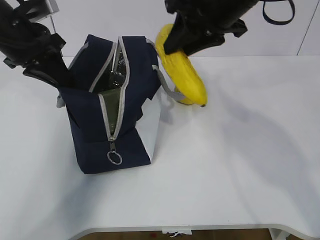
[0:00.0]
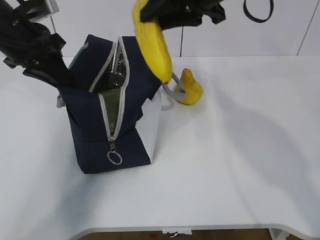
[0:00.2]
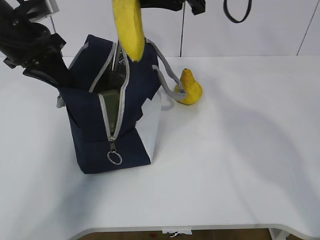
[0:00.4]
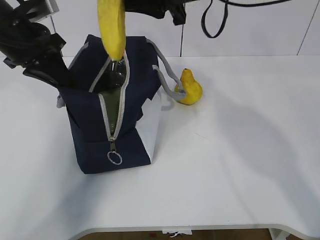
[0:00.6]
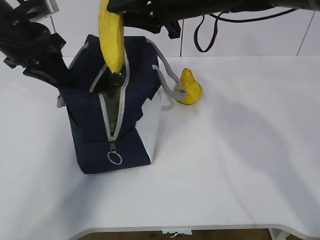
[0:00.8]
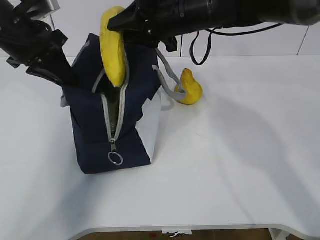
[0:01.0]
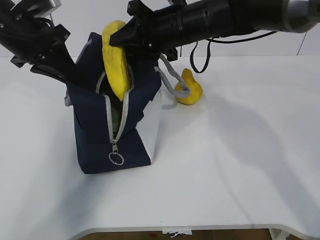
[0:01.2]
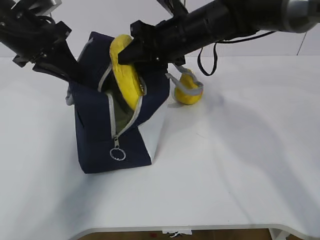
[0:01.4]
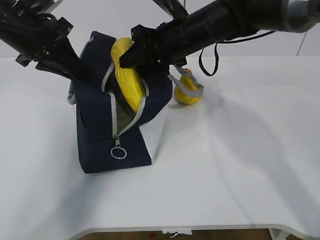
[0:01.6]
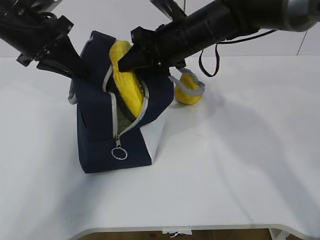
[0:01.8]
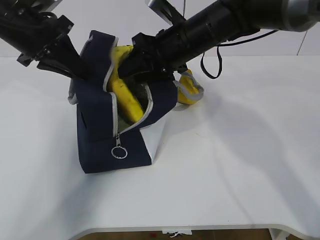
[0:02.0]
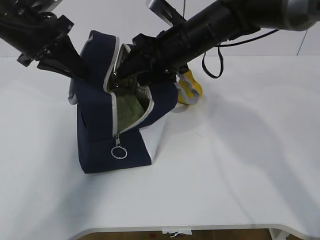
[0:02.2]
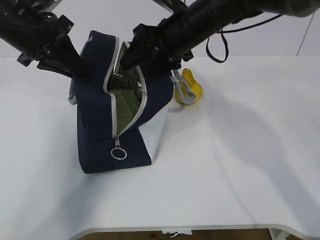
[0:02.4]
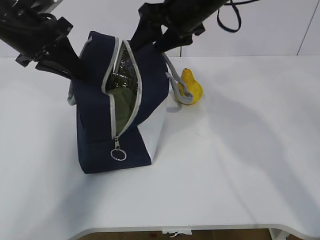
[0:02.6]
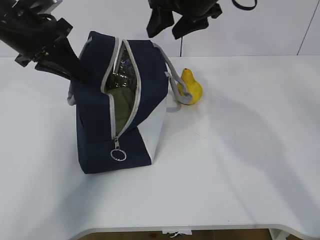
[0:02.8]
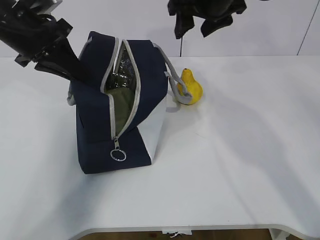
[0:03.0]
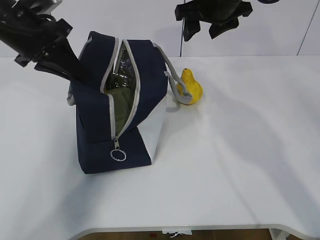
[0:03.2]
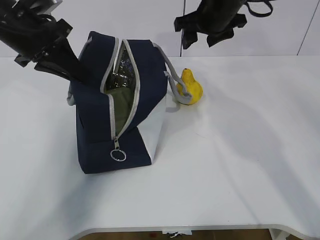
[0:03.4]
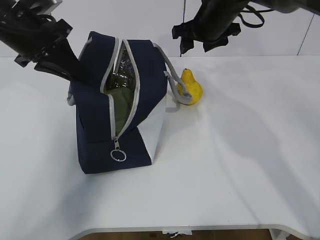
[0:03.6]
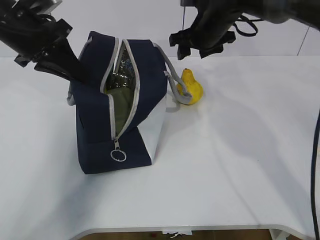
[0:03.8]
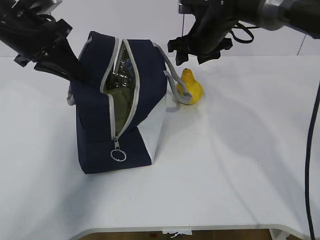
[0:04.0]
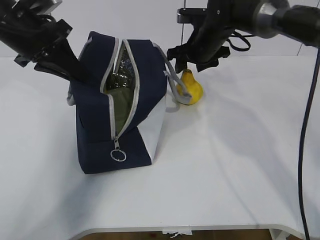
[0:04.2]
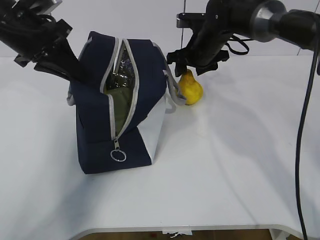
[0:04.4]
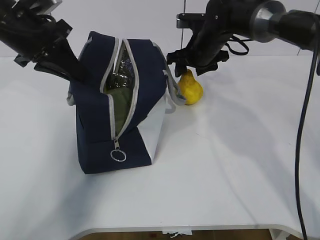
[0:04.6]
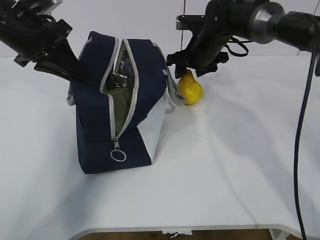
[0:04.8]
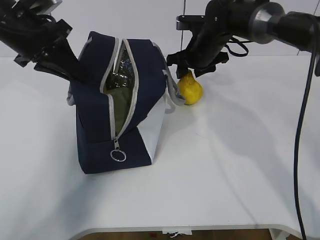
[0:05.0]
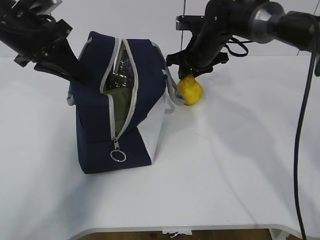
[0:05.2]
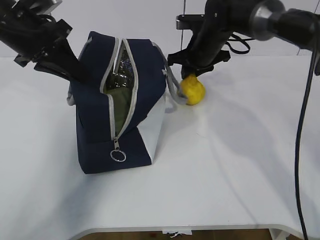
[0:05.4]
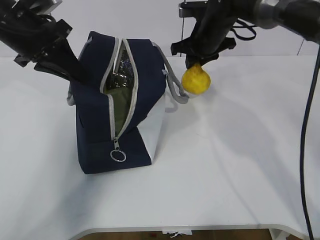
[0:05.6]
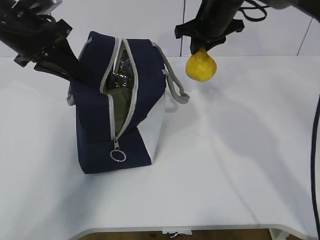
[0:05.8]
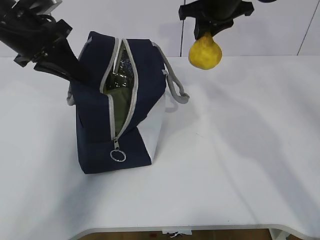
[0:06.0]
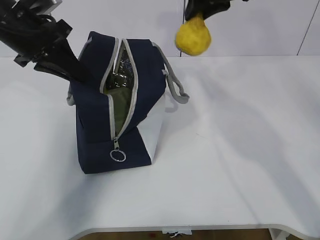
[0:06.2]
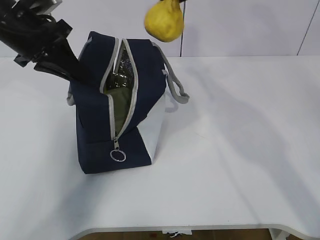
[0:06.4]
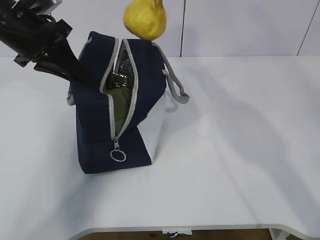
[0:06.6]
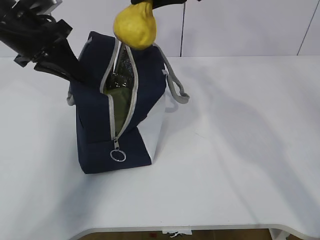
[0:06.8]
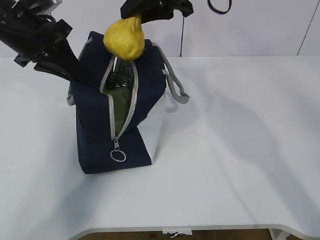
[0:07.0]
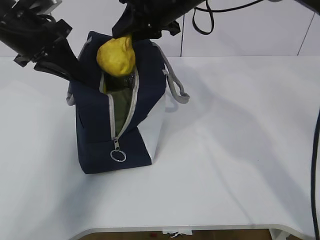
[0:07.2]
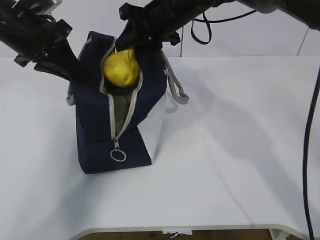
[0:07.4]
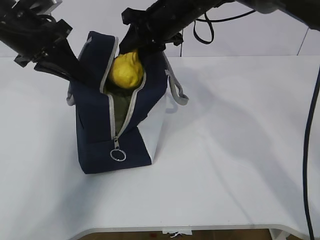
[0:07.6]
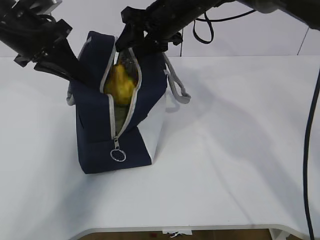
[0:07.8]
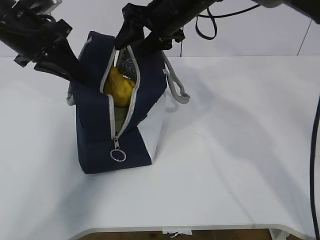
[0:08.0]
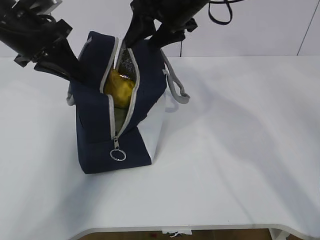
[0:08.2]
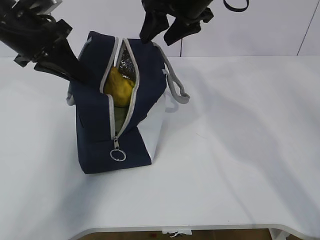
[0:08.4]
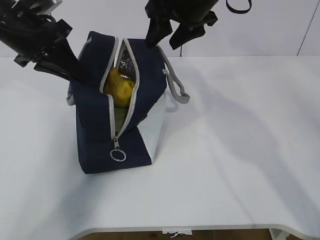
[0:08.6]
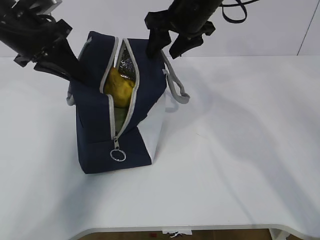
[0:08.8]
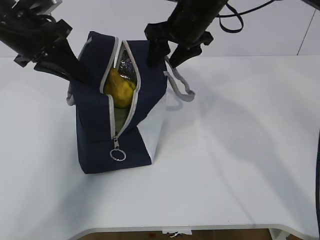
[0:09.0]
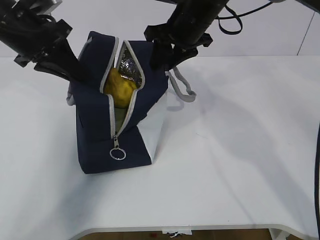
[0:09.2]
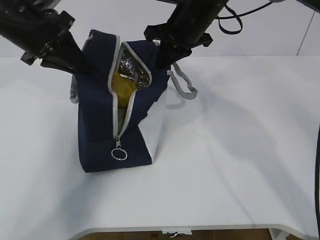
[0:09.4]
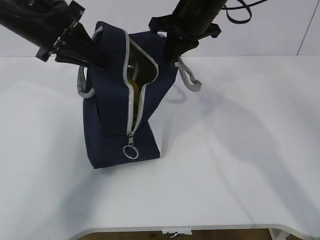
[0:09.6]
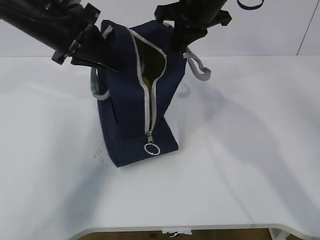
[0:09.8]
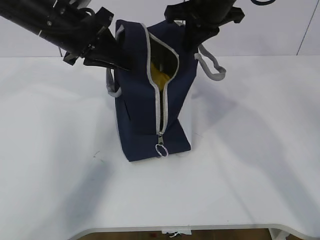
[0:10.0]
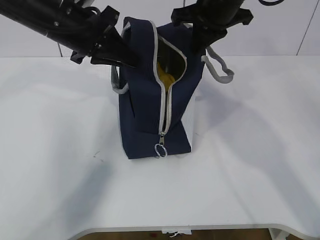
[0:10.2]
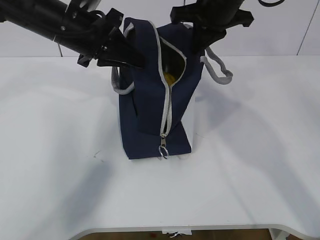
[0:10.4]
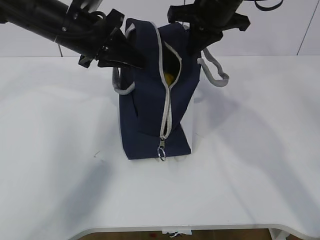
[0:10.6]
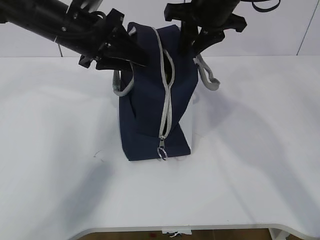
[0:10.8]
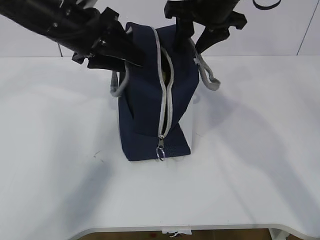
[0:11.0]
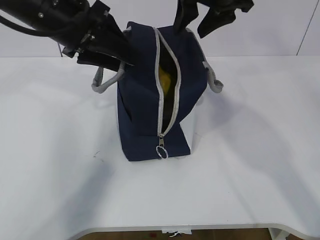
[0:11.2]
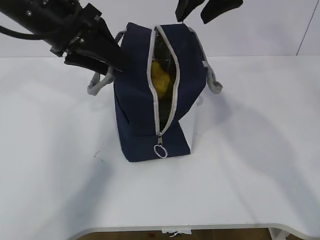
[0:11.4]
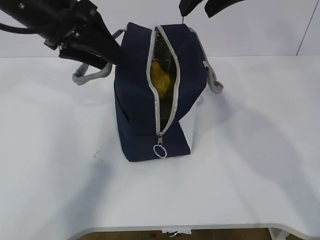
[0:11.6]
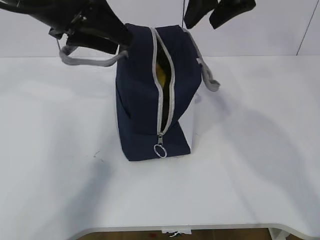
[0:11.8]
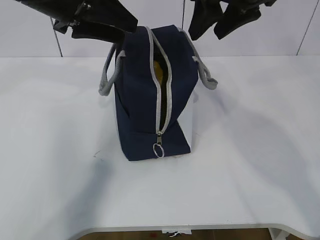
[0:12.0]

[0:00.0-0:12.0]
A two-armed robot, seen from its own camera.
Step, 3.4 to 3.6 s: Grab the lunch bag with your right hand.
Step, 3.8 to 6.0 s: Move the lunch bag to the right.
0.0 to 1.6 s: The right gripper moves downward and forward, some 10 cm.
1.6 to 3.0 s: The right gripper goes about 10 cm upward and to the right, and opens.
3.0 to 4.4 s: The right gripper travels downward and forward by approximately 15 cm.
4.4 to 6.0 s: The right gripper is displaced upward by some 10 cm, and closes.
6.0 to 7.6 s: The right gripper goes approximately 10 cm to the left, and moves some 5 cm upward and comes back.
7.6 to 9.0 s: The right gripper opens its fingers.
9.0 to 10.4 s: The right gripper moves about 5 cm, and closes its fingers, while the left gripper shifts approximately 5 cm to the right.
10.4 to 12.0 s: The left gripper moves upward, roughly 5 cm, and opens, while the right gripper moves backward and upward, roughly 10 cm, and opens its fingers.

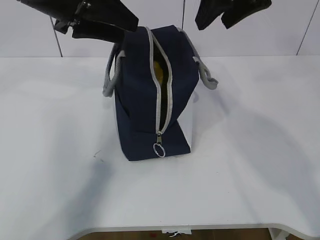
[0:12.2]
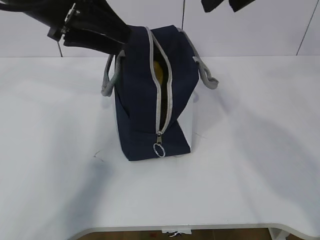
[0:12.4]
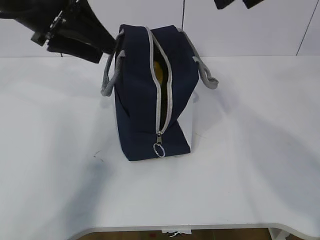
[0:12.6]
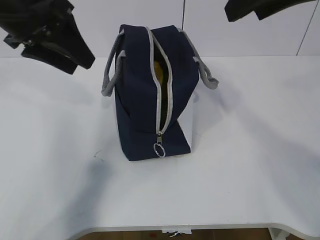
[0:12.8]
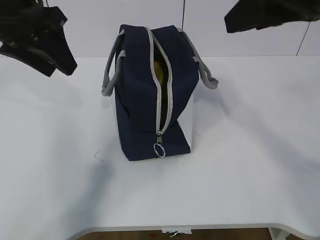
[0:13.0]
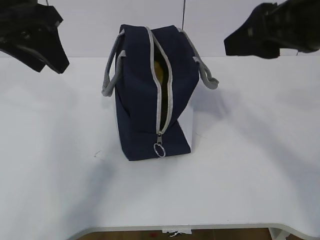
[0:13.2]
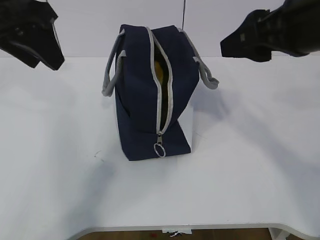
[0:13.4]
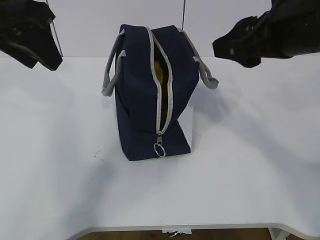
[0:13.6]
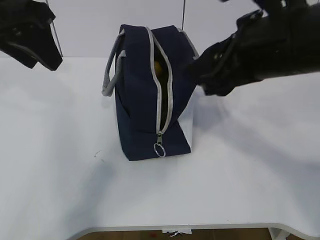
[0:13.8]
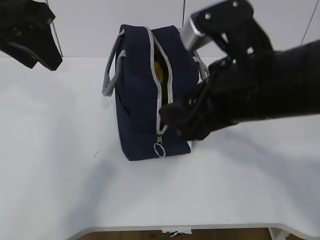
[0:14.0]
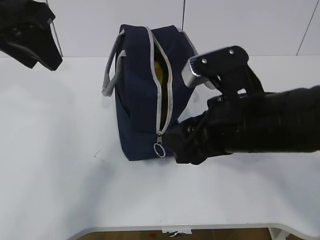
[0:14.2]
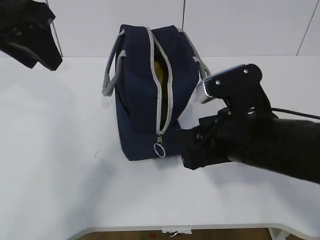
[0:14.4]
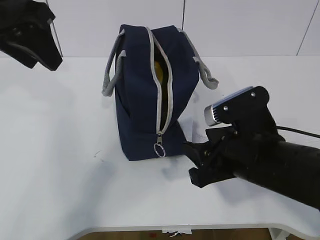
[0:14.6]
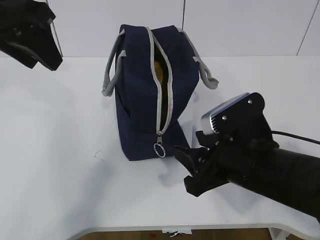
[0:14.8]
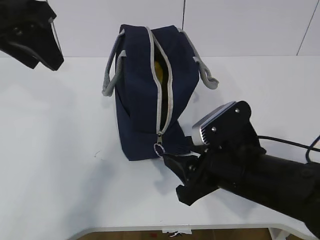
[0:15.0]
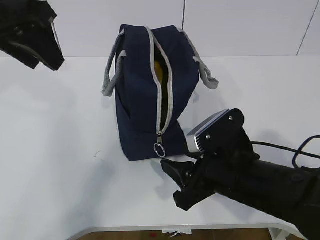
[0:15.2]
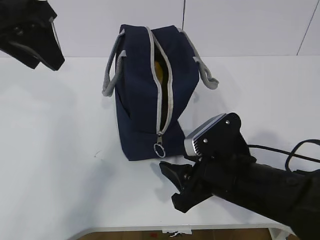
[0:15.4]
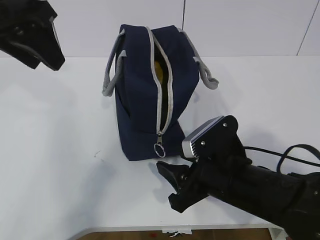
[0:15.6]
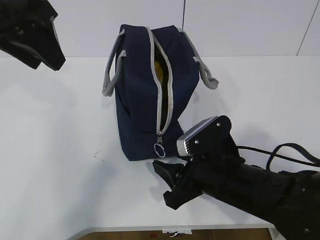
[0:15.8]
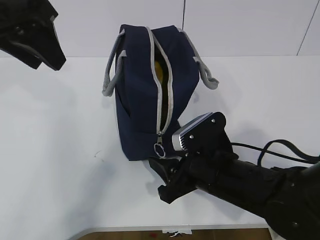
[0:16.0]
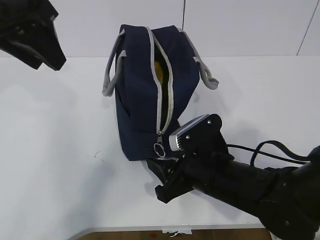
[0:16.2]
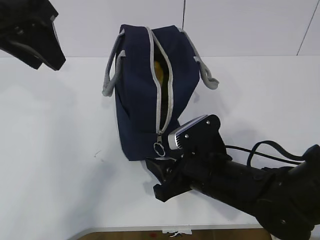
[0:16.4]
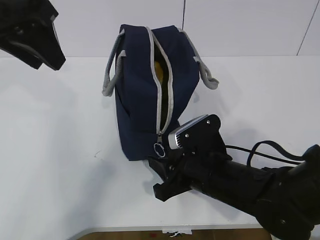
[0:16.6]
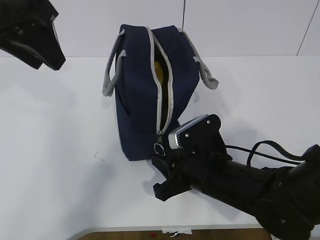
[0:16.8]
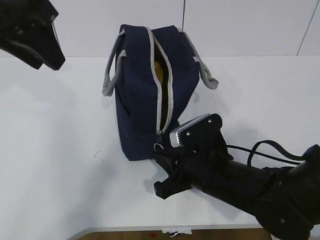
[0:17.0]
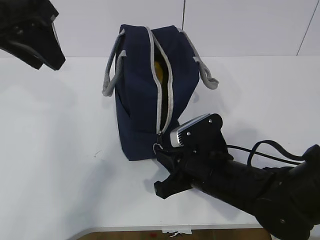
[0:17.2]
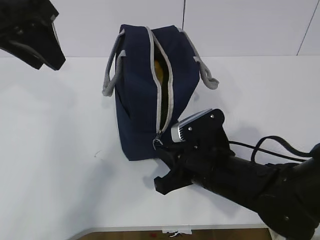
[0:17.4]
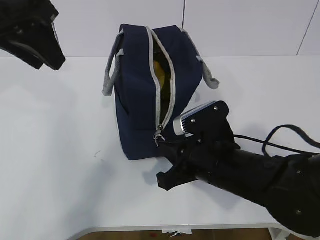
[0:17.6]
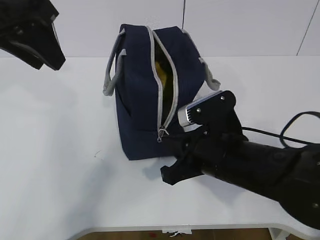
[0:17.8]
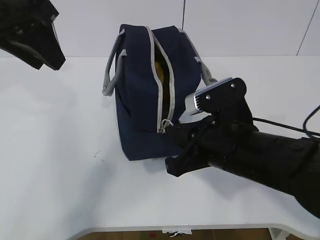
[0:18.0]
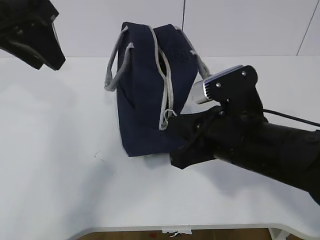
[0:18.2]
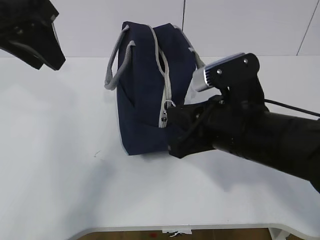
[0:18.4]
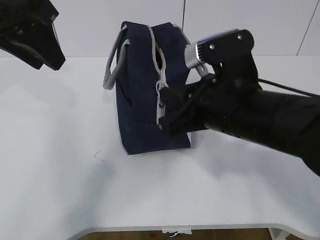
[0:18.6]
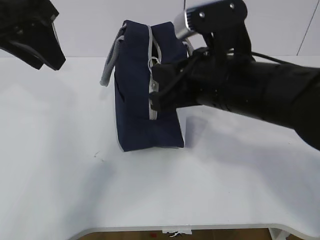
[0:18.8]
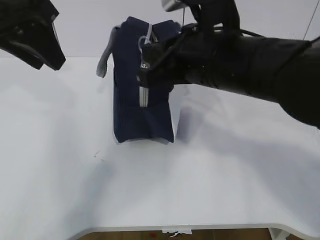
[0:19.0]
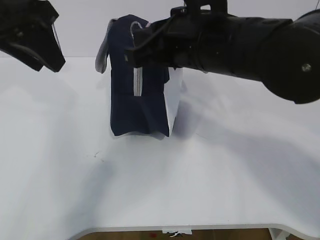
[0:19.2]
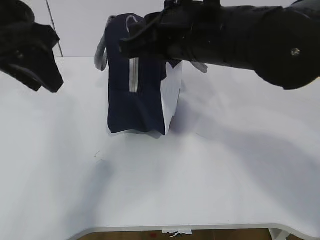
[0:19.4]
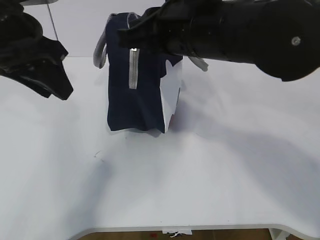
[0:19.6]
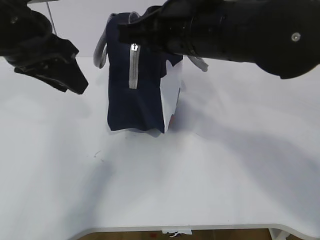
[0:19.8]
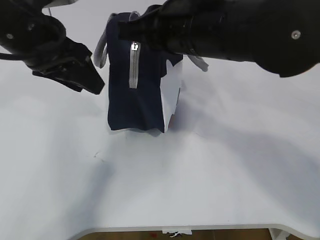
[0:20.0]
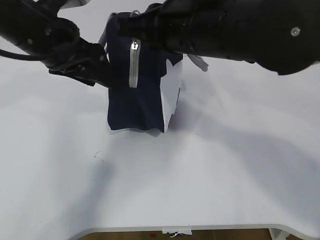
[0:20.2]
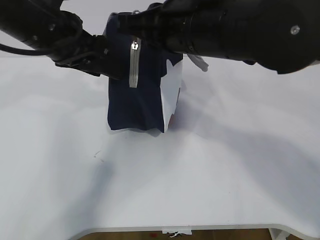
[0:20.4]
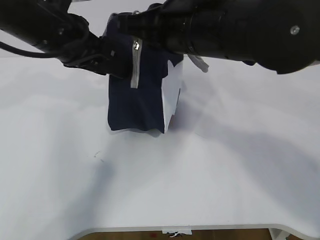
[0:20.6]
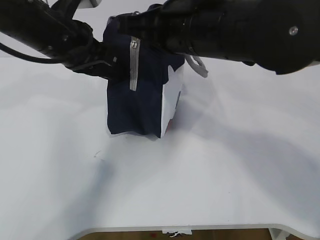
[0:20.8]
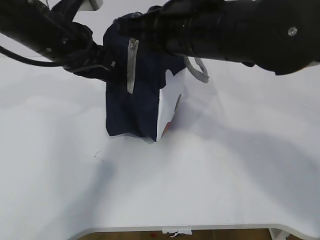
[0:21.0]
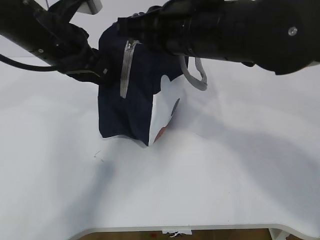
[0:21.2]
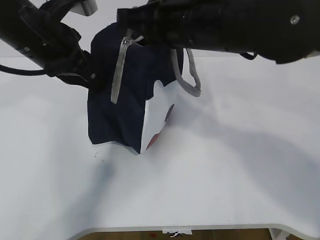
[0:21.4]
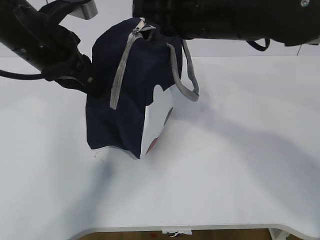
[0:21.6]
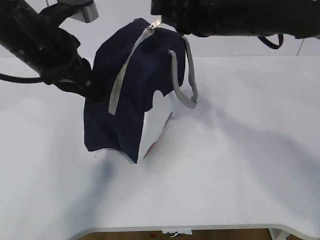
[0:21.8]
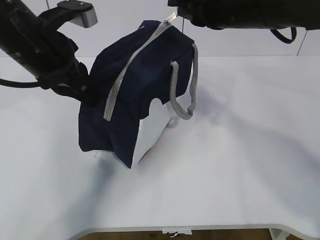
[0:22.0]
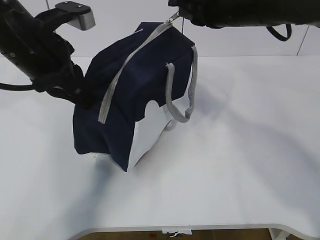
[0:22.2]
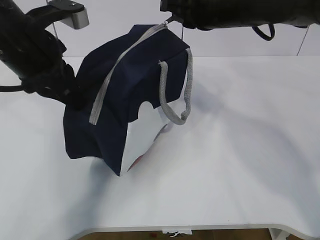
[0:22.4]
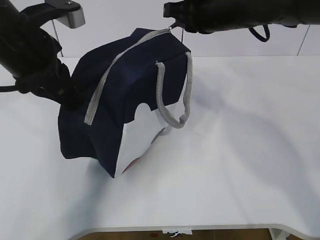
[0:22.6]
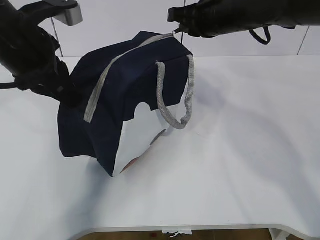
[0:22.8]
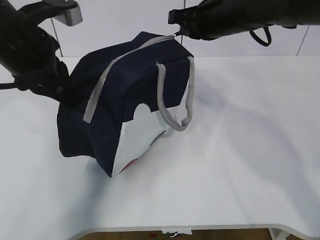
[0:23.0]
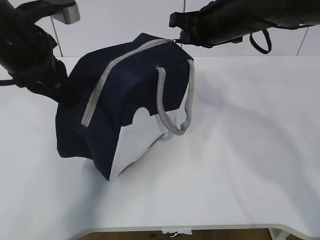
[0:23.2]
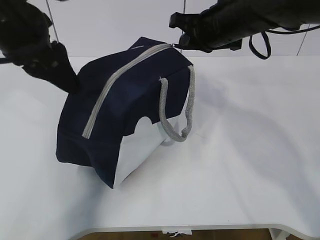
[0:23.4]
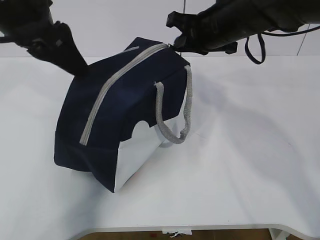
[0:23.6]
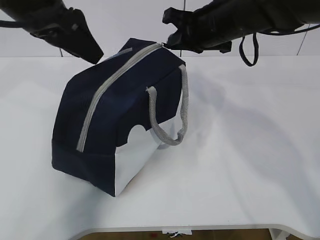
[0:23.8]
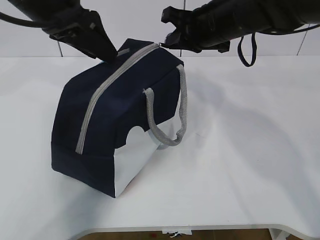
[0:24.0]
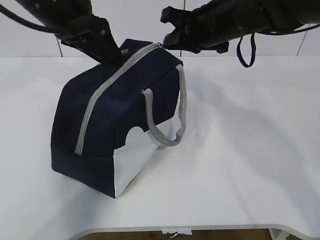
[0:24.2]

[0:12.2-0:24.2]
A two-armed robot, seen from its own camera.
Step, 12.2 to 15.0 s: Grab the lunch bag with your left hand.
Step, 15.4 to 18.2 s: Pull the zipper with your right hand.
12.2 to 13.8 s: The right gripper shifts approximately 15 cm backward and downward, while the left gripper moves backward, about 5 cm.
13.8 to 15.2 s: The right gripper is displaced downward by approximately 15 cm.
15.2 to 16.6 s: The grippers move only a little.
16.6 to 18.2 s: The right gripper heads upward, covering approximately 10 cm, and closes.
18.2 to 19.8 s: The right gripper is displaced upward and forward by roughly 15 cm.
19.8 to 21.2 s: The left gripper shifts by about 5 cm, and closes up.
21.2 to 22.6 s: The right gripper shifts about 15 cm forward and to the right.
22.6 to 24.2 s: The left gripper moves forward, roughly 5 cm, and opens its fingers.
